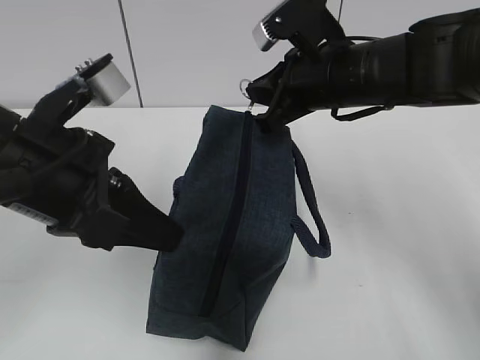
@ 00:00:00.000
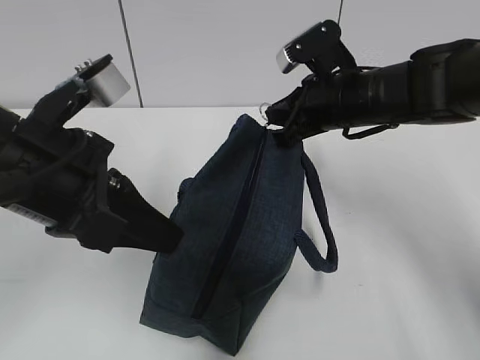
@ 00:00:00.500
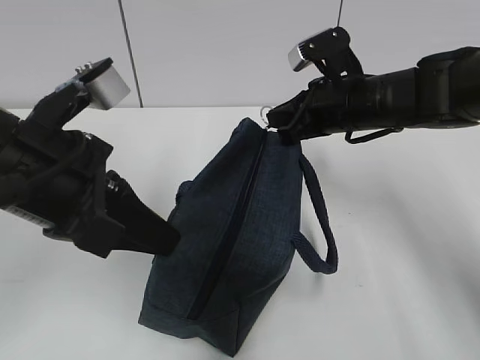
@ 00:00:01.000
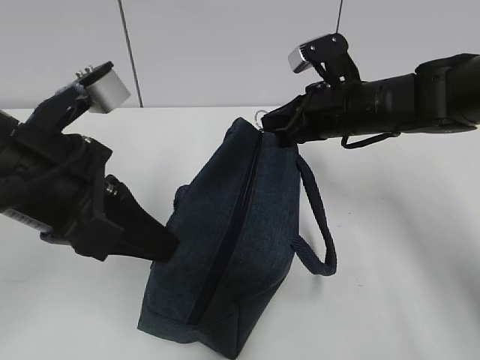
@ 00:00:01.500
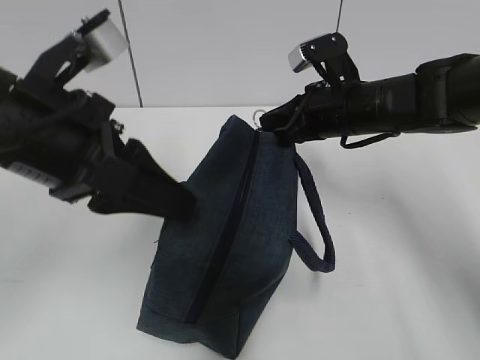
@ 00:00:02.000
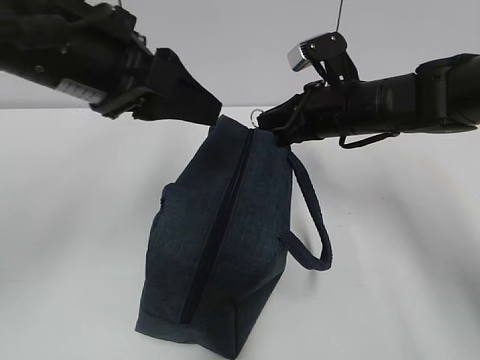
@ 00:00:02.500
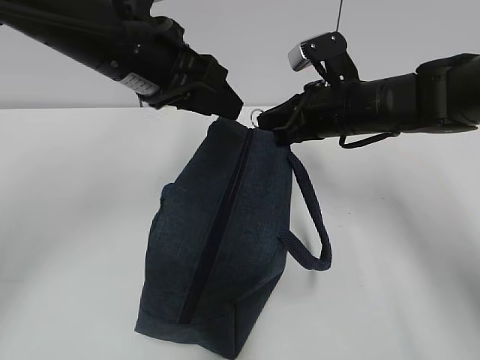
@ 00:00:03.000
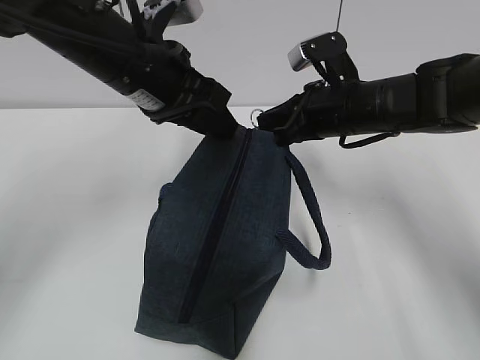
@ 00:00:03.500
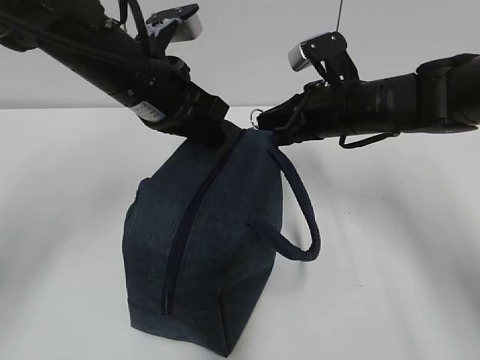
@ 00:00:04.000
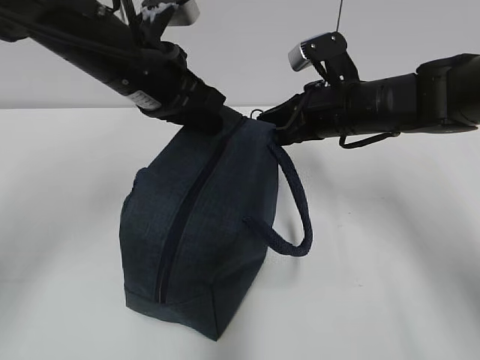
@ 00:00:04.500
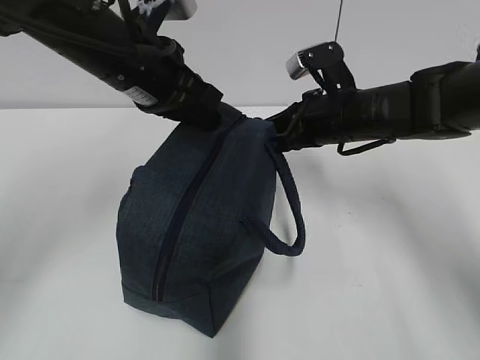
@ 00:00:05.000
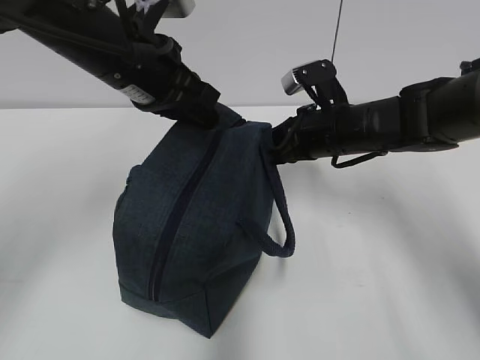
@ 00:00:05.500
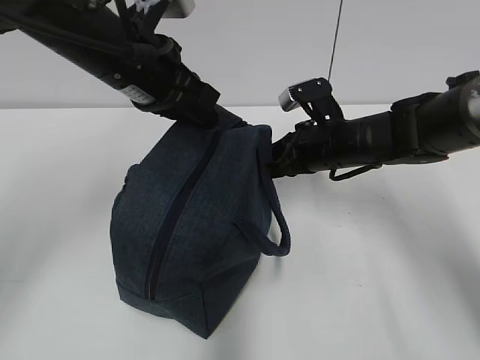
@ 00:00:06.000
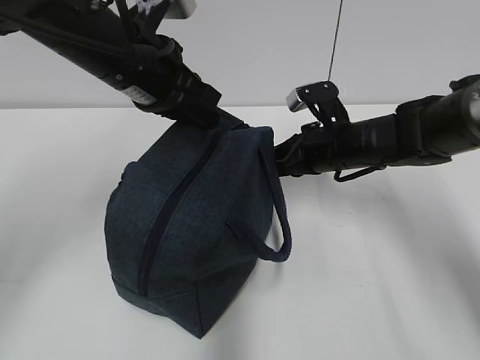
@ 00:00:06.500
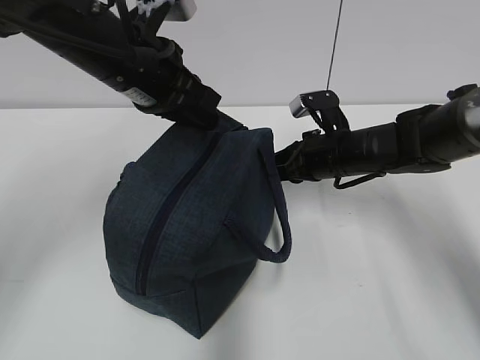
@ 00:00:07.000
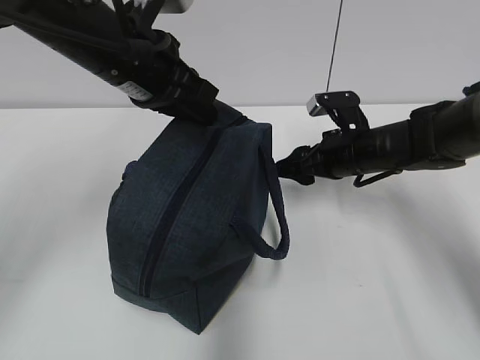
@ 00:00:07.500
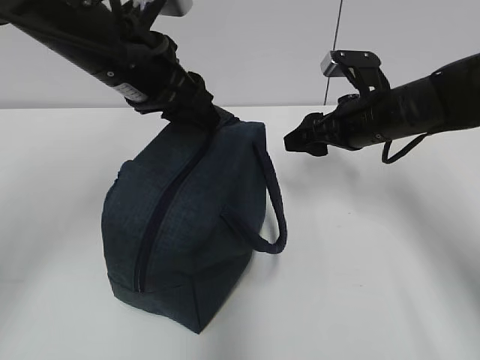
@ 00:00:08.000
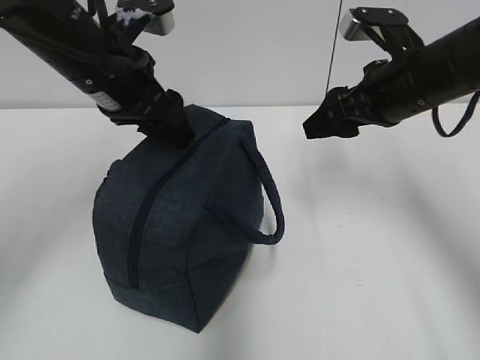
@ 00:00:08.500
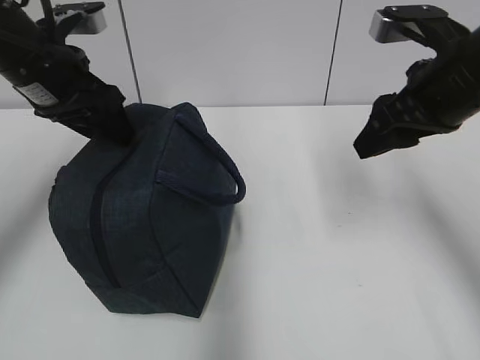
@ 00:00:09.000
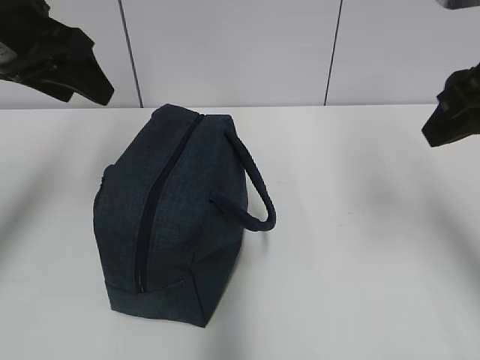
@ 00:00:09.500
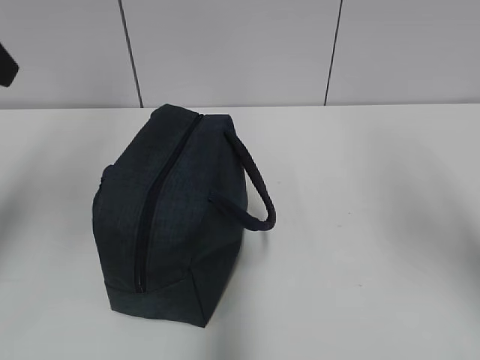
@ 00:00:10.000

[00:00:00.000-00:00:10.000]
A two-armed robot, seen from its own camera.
Step, 00:00:02.000 to 00:00:07.000: Pull the zipper with your right hand.
Step, 00:00:07.500 to 00:00:09.000: Grab the lunch bag with your left hand.
00:00:00.000 to 00:00:02.000: The left gripper opens up; the right gripper goes roughly 5 cm downward.
00:00:02.000 to 00:00:04.000: The left gripper moves forward, some 15 cm, and closes its fingers.
00:00:04.000 to 00:00:06.000: The right gripper shifts approximately 5 cm downward.
00:00:06.000 to 00:00:08.000: The right gripper changes place by some 5 cm, and opens. Meanwhile the left gripper opens.
00:00:08.000 to 00:00:10.000: The left gripper shifts some 20 cm to the left, upward and backward. Meanwhile the right gripper goes about 25 cm backward and upward, and closes.
